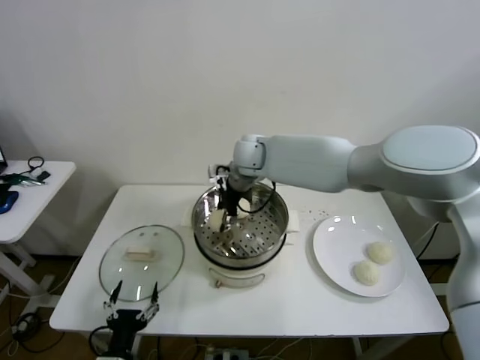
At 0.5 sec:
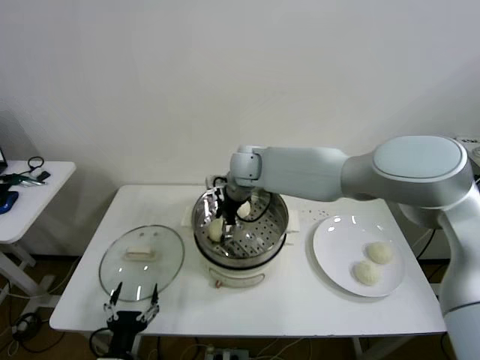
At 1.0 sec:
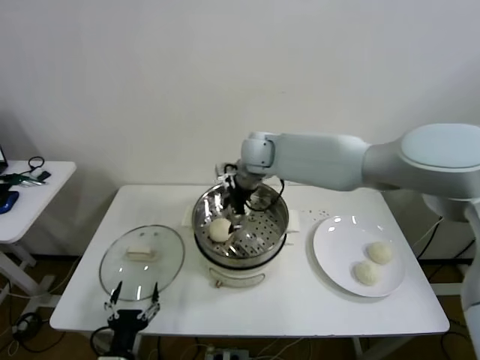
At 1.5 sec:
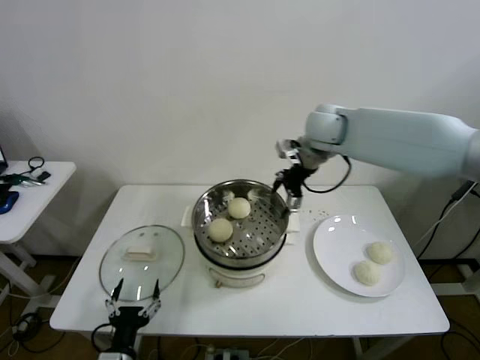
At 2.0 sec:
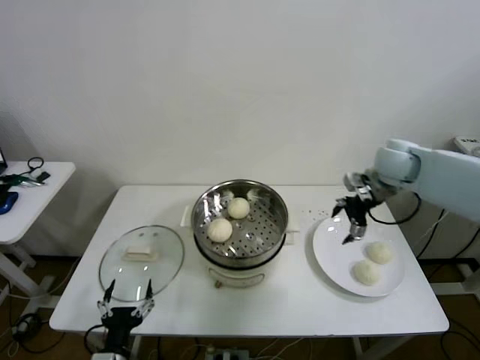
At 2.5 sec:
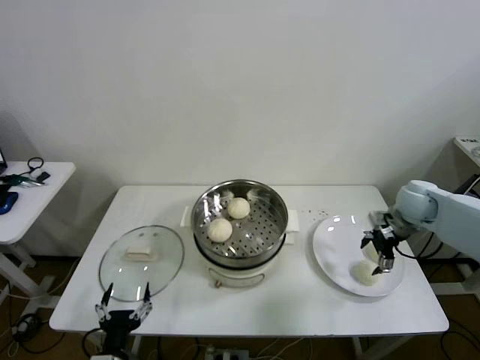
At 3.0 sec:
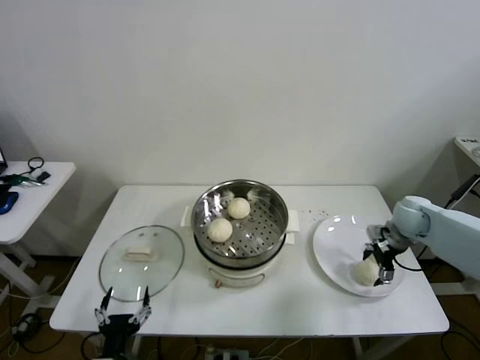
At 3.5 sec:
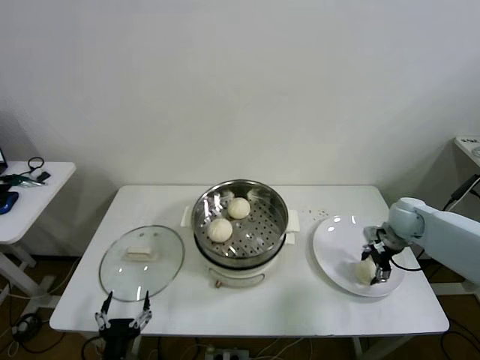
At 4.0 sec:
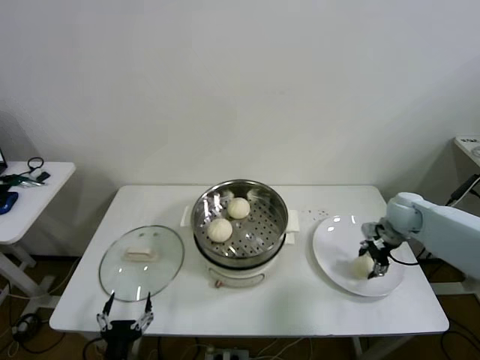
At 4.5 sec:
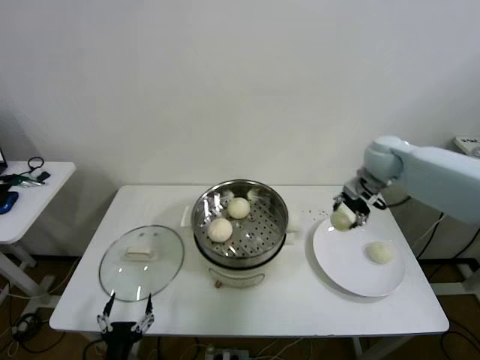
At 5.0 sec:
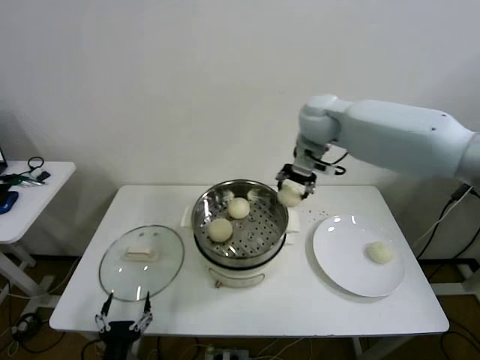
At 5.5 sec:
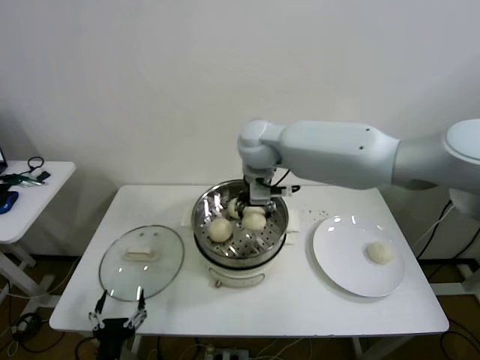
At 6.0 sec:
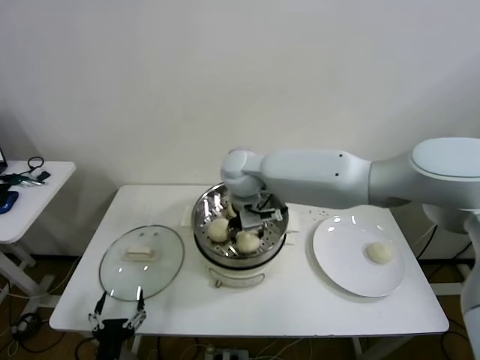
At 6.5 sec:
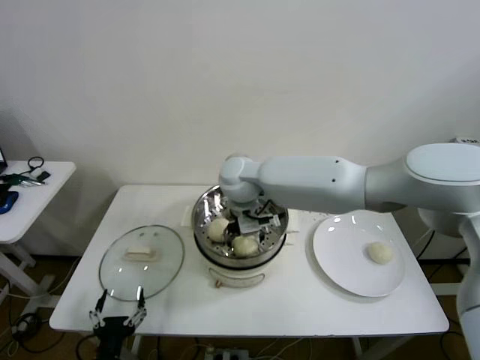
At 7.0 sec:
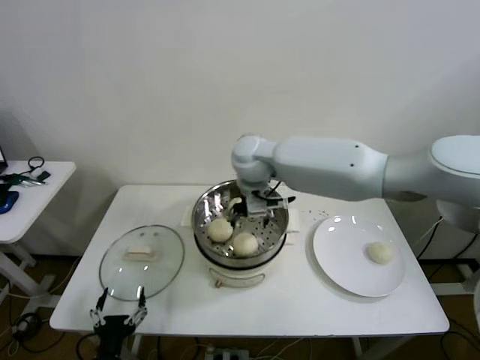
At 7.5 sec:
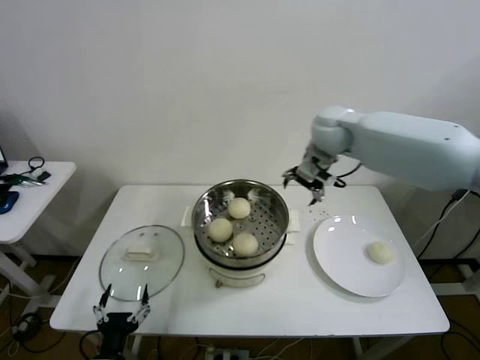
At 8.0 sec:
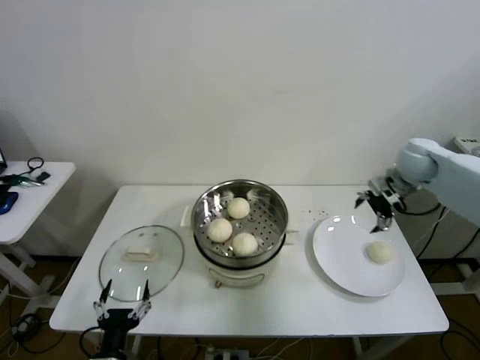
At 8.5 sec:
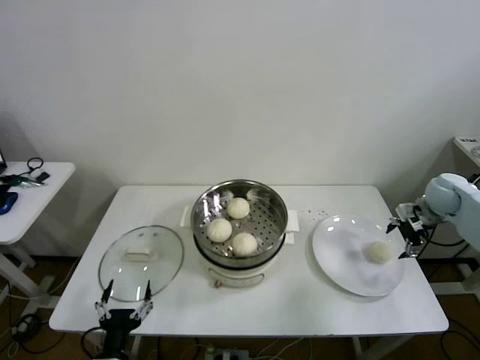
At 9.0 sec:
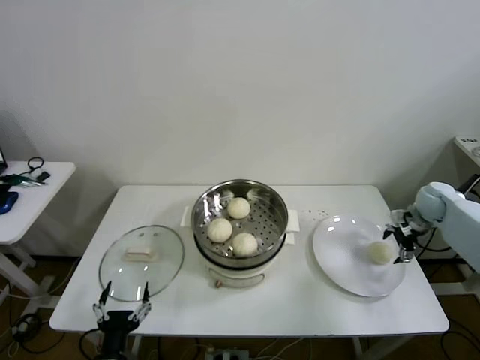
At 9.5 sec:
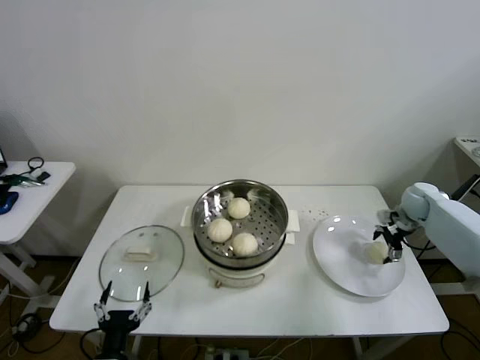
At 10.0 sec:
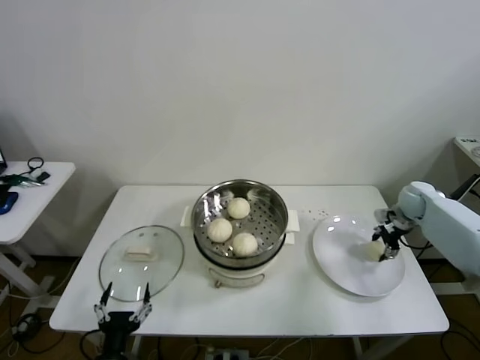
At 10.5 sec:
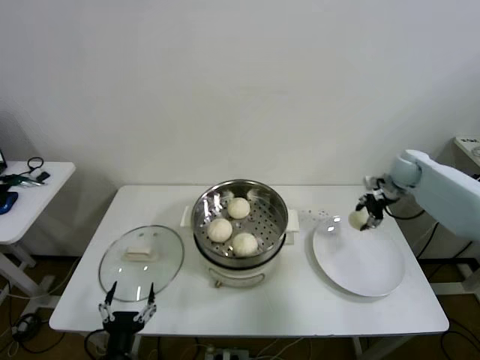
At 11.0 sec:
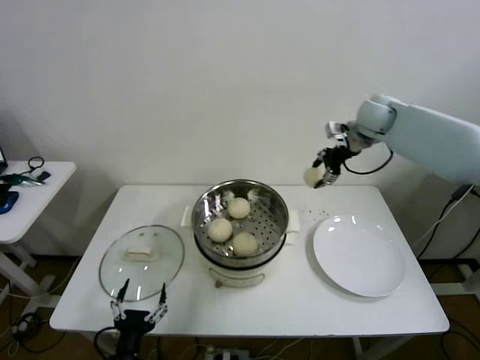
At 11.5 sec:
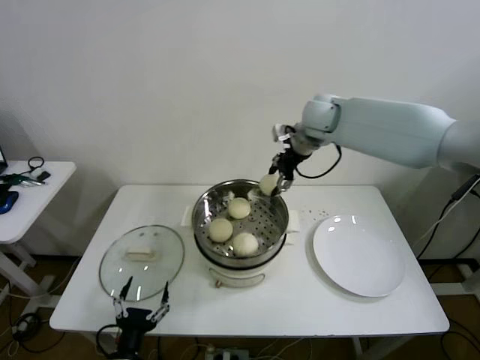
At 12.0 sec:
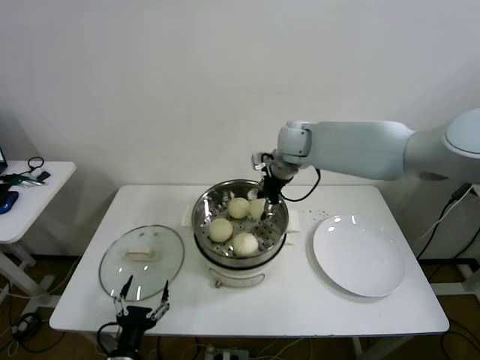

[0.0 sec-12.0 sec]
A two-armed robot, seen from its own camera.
Step, 1.0 sec to 3.5 sec: Grasp the baozi in the plate with right gripper.
Step, 4.0 sec to 6.5 sec: Place the baozi on the steamer with right gripper.
Step, 7.0 sec to 9.5 sec: Grasp the baozi in the plate with right gripper.
0.0 sec to 2.0 sec: The right gripper goes roughly 35 cm to the right, and opens its fingers.
2.0 sec to 4.0 sec: The right gripper is displaced downward by some 10 cm, and closes up.
4.0 sec to 6.0 sec: The right gripper goes about 40 cm to the left.
6.0 sec to 8.0 sec: The right gripper heads to the right, covering approximately 40 cm, and opens.
8.0 sec to 10.0 sec: The right gripper travels downward and to the right by about 15 cm, and closes its fingers.
10.0 sec to 12.0 sec: The right gripper is displaced to the left and upward by about 40 cm.

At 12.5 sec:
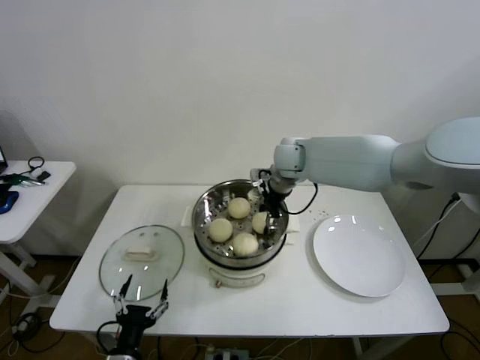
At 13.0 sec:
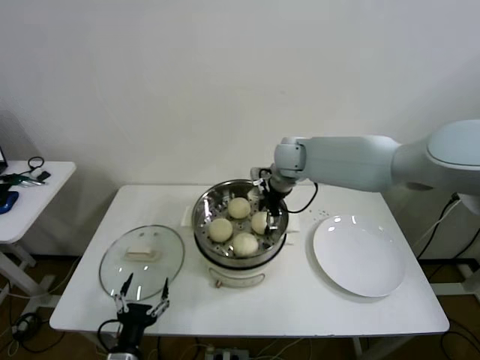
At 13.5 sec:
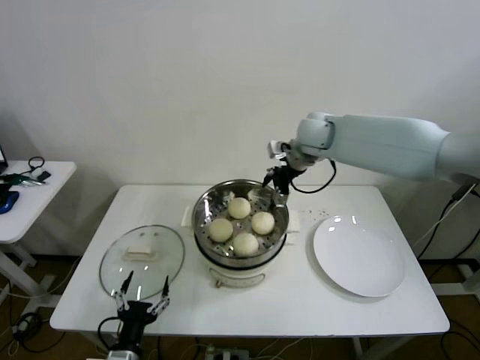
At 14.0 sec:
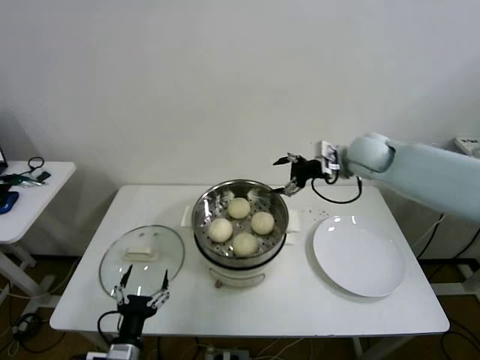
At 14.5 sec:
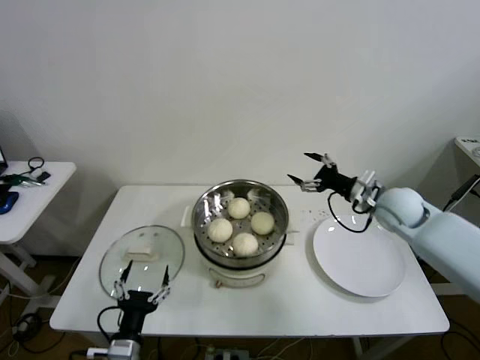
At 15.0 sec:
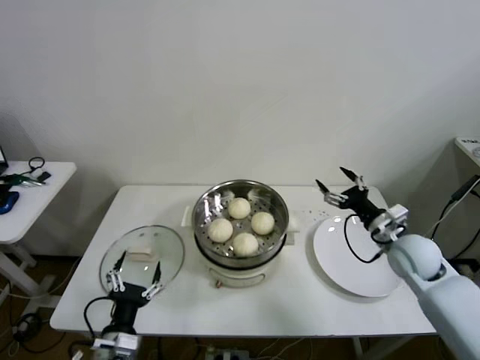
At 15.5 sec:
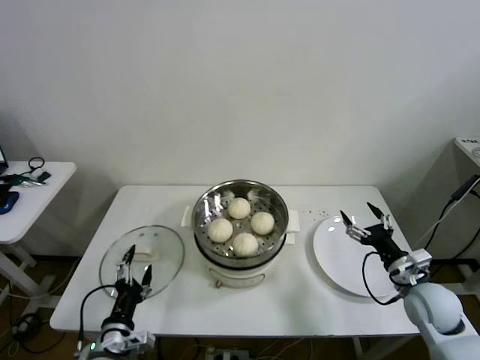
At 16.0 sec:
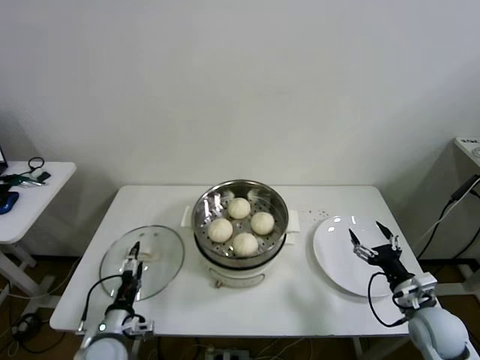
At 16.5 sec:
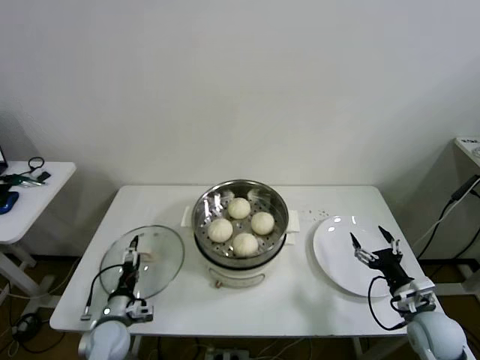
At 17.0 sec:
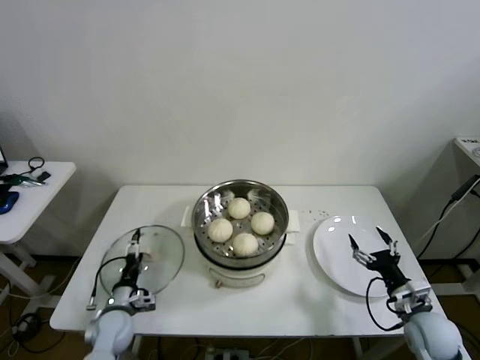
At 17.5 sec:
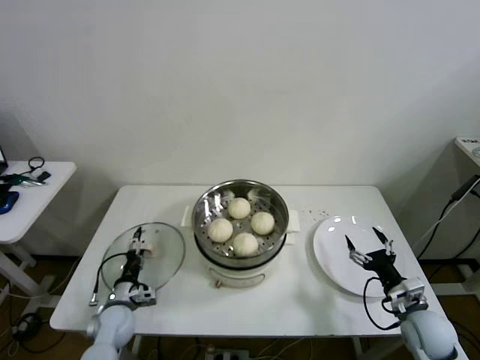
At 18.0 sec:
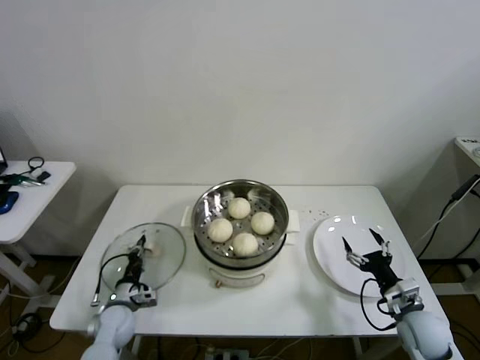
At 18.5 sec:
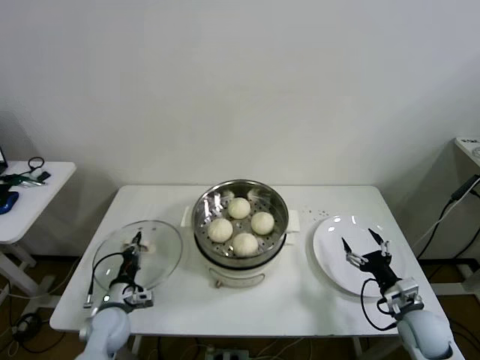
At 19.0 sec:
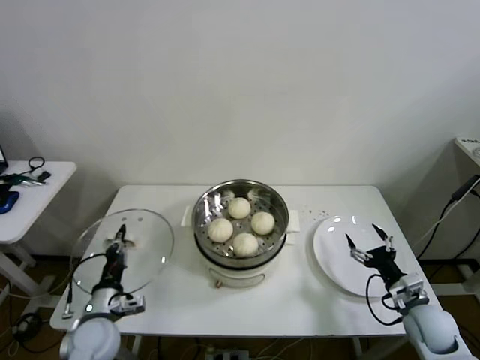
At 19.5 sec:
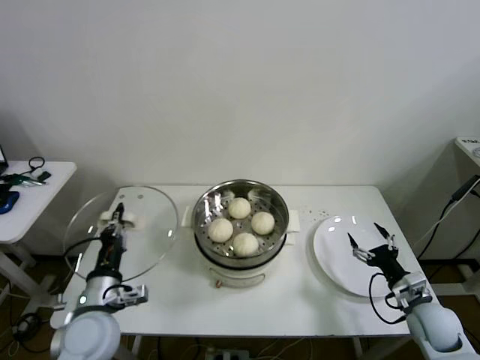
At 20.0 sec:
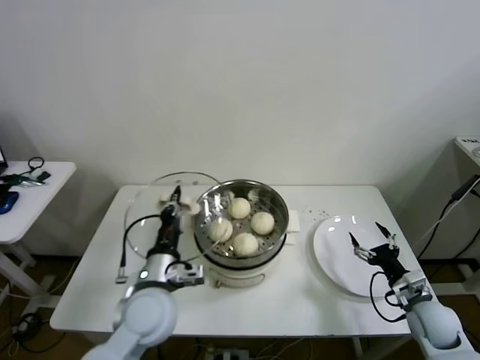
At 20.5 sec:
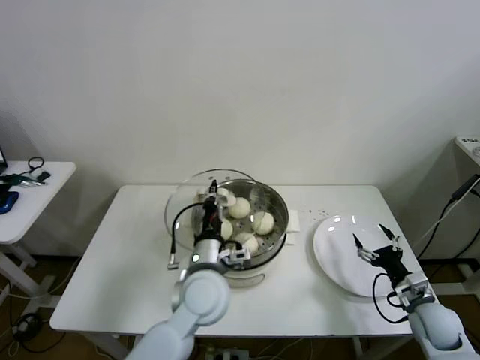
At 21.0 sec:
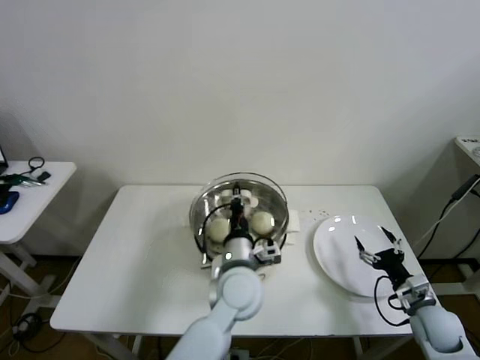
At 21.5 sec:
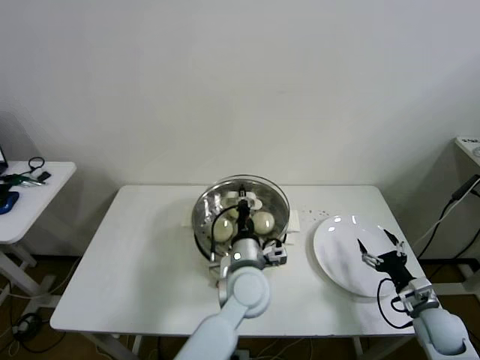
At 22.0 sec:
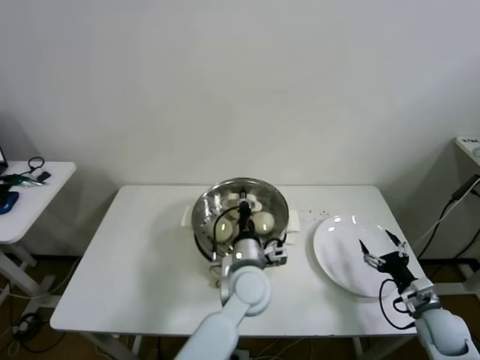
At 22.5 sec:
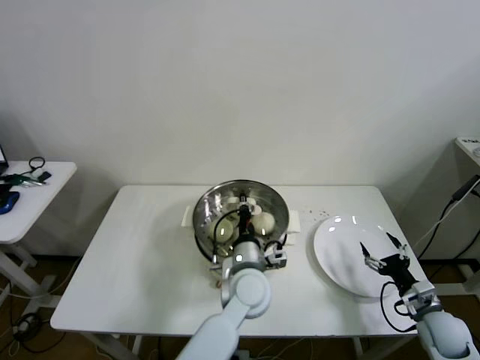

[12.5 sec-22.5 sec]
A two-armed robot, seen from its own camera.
Step, 13.0 sec to 18.0 sec: Grasp the pot lid with left gripper.
12.5 sec to 14.5 sec: The right gripper is displaced to the right and backward by roughly 25 cm, and opens its fingers.
14.5 sec to 16.5 sec: The left gripper travels forward, to the left and downward by approximately 15 cm, while the right gripper is displaced backward and downward by approximately 25 cm.
16.5 sec to 18.5 sec: The left gripper closes its fingers.
18.5 sec to 20.5 sec: The left gripper goes roughly 30 cm to the right and upward.
20.5 sec to 22.5 sec: The left gripper is displaced to the right and downward by approximately 10 cm.

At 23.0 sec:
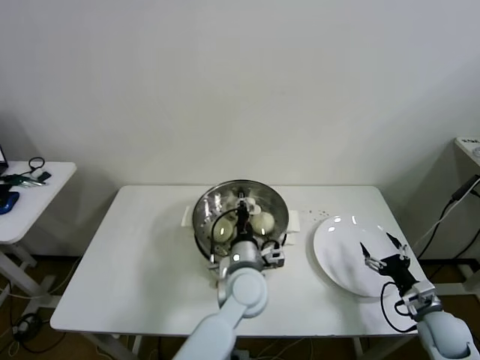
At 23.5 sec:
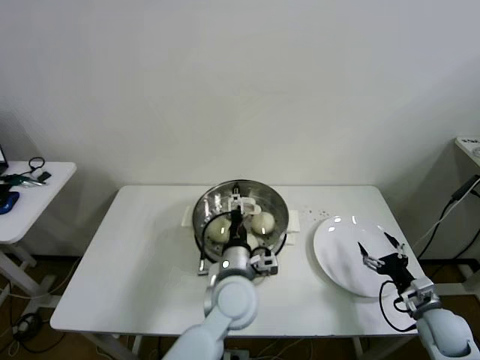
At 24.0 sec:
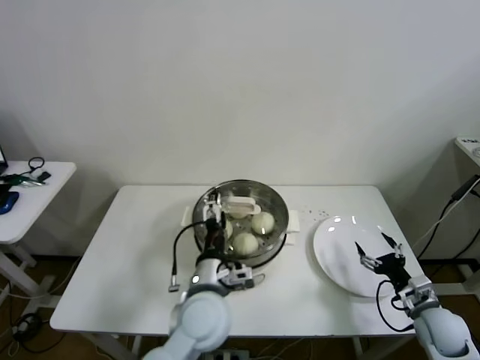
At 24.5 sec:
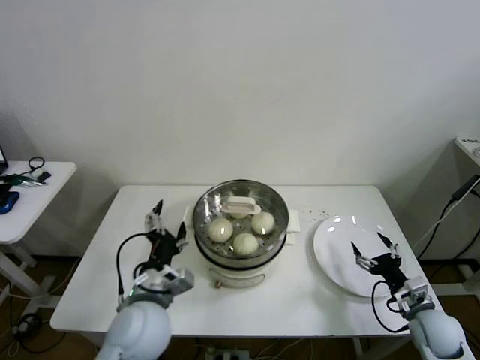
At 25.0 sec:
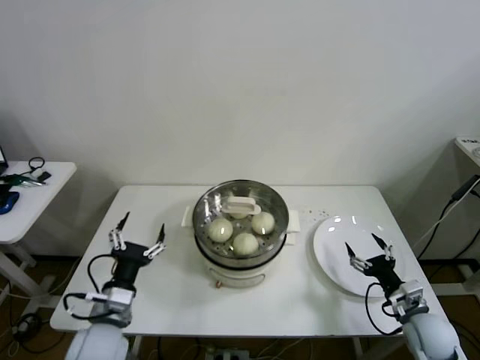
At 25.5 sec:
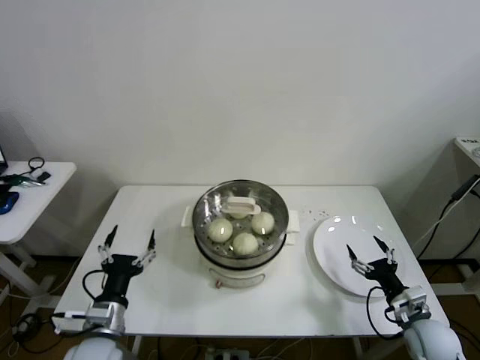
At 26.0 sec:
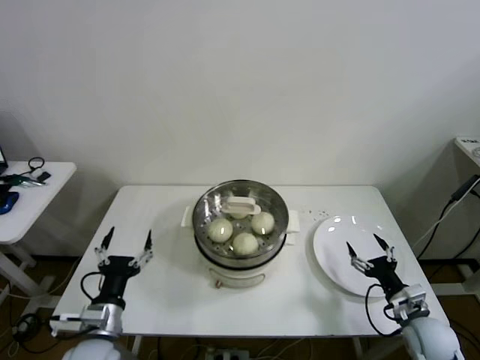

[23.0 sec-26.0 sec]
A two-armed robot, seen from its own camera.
23.0 sec to 24.5 sec: The left gripper goes roughly 20 cm to the left and backward, and opens its fingers.
24.5 sec to 26.0 sec: The left gripper travels to the left and downward by approximately 15 cm.
